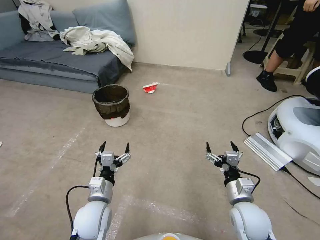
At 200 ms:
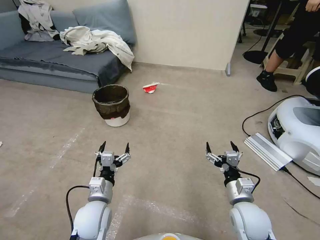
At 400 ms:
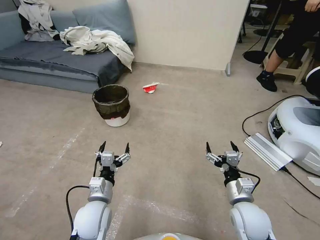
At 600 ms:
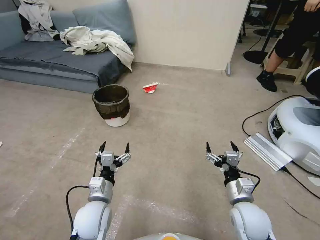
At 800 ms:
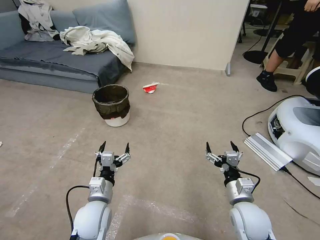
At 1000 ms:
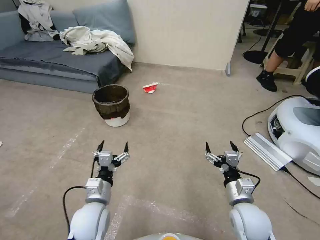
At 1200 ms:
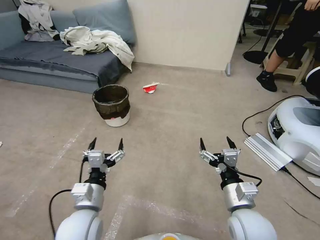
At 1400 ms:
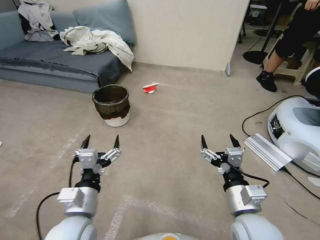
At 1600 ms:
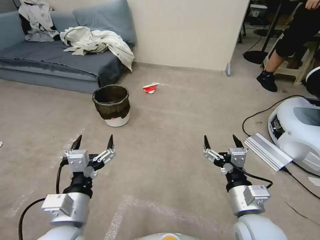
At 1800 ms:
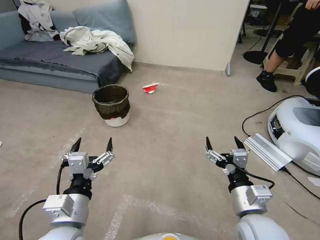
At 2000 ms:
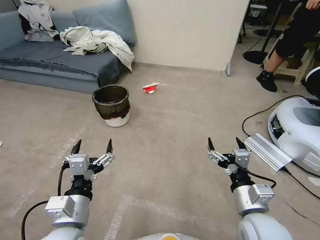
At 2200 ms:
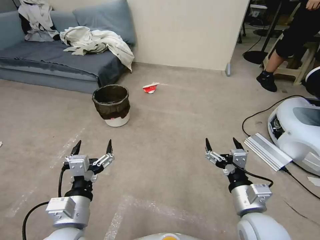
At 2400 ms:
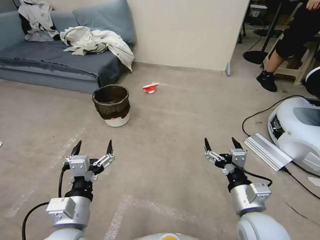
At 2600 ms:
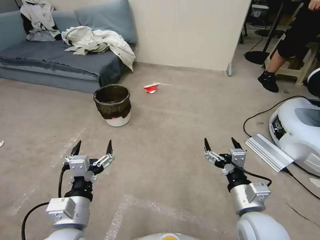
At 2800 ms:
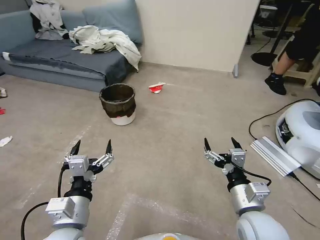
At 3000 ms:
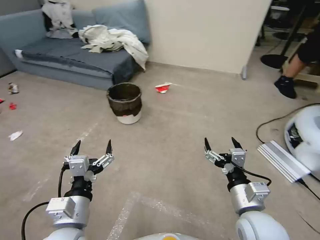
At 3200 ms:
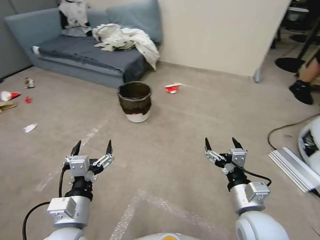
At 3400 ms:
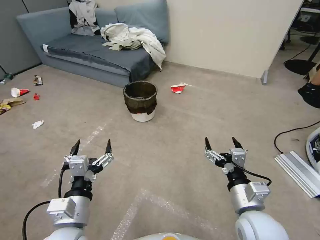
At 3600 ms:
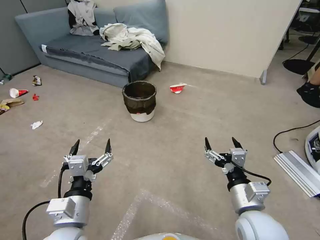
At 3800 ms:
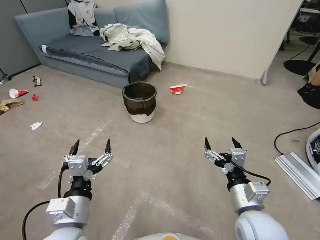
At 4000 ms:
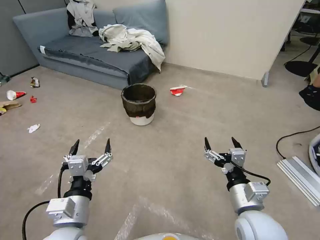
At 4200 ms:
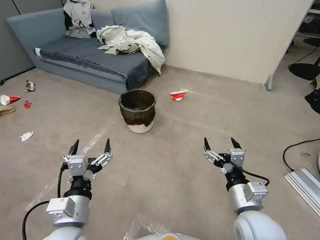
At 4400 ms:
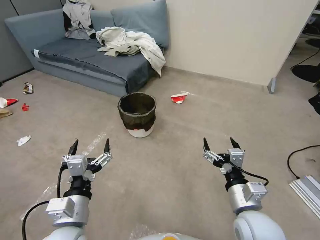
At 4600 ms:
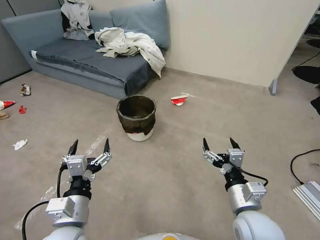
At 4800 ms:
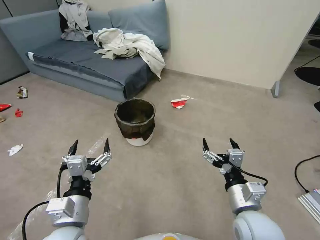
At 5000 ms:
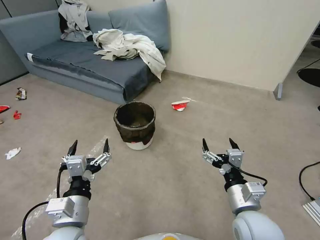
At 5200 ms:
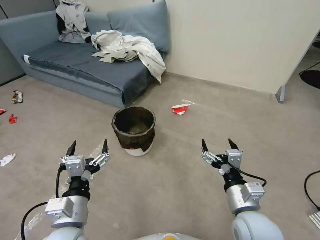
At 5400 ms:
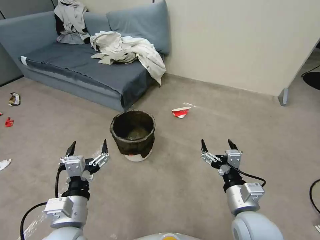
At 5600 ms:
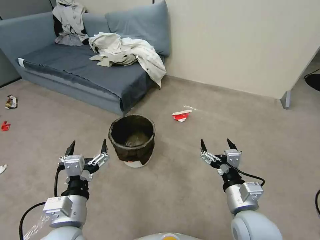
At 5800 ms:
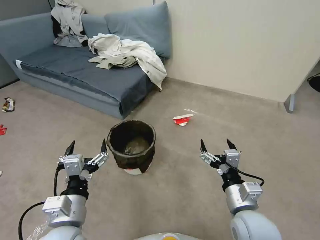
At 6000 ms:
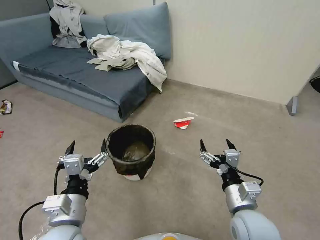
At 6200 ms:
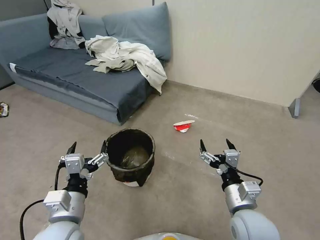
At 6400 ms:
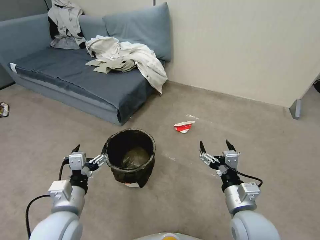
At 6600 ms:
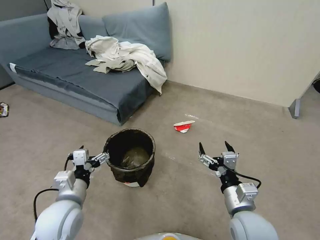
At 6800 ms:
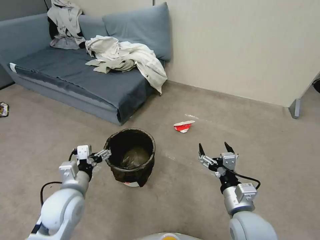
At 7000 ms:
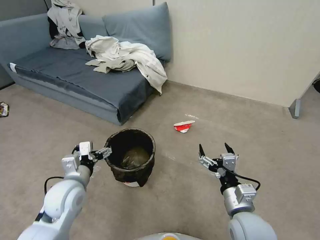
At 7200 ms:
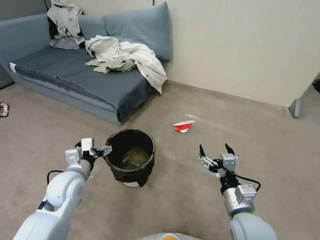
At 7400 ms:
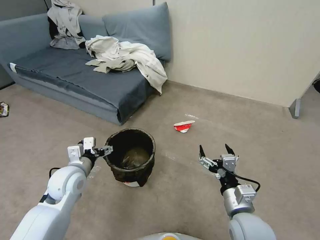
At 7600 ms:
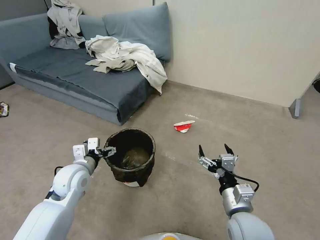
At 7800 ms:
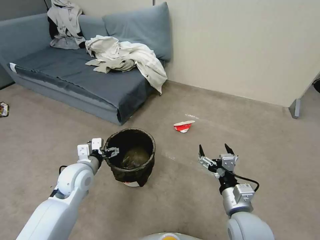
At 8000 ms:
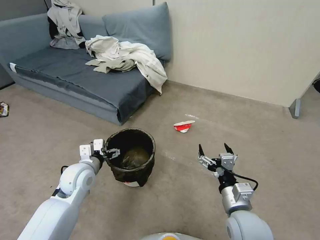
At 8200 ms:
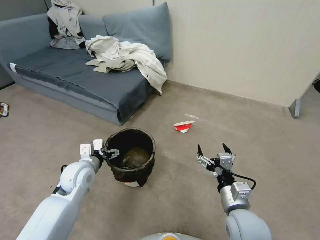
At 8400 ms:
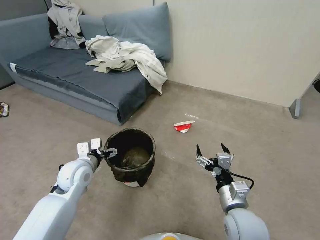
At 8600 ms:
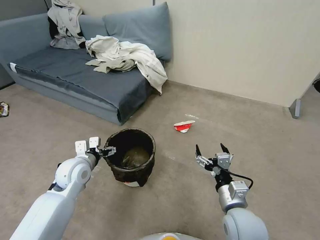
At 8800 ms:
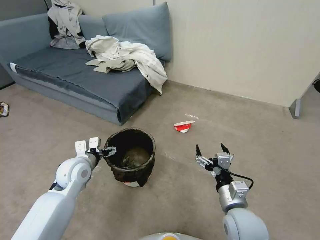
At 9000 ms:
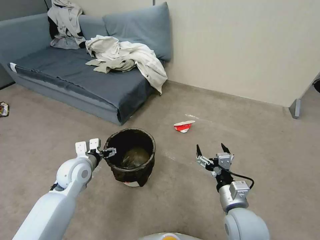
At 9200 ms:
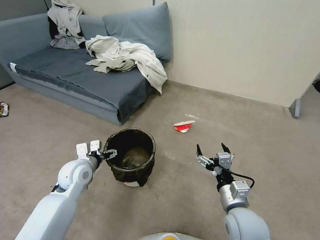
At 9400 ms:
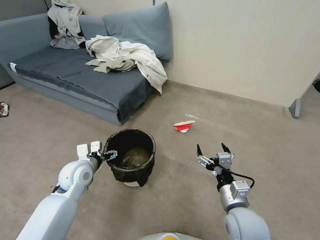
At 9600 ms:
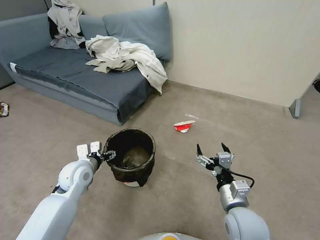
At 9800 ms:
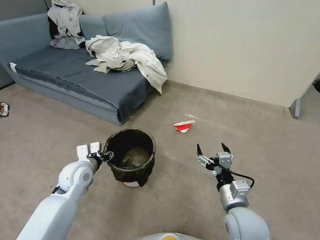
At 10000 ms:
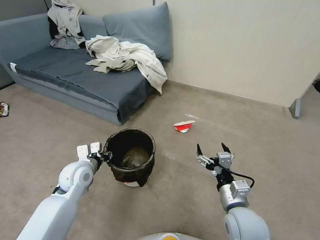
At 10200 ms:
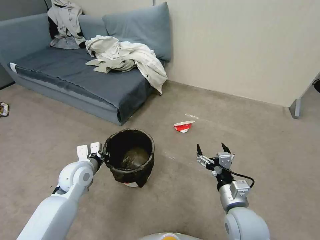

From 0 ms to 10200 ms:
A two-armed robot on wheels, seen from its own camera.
Task of the whole recording: Pick up the trash can from the floor.
From 5800 ms to 7200 ms: The left gripper heads forward and to the left, covering roughly 15 cm.
From 7200 ms to 8800 ms: The left gripper changes place by about 5 cm.
From 8800 ms to 10200 ms: The left gripper closes.

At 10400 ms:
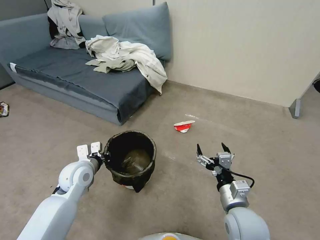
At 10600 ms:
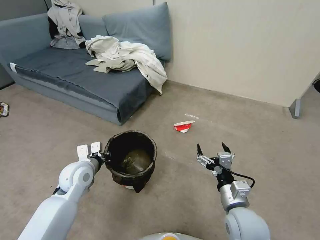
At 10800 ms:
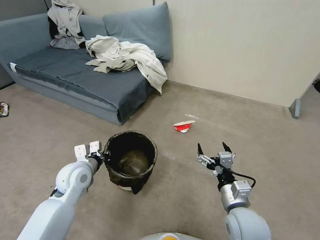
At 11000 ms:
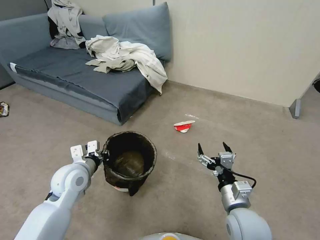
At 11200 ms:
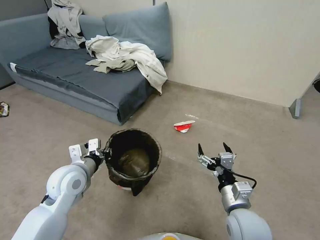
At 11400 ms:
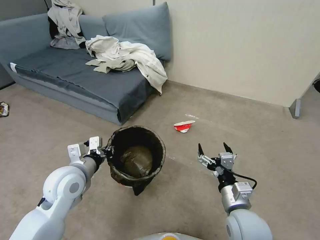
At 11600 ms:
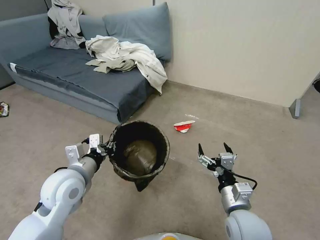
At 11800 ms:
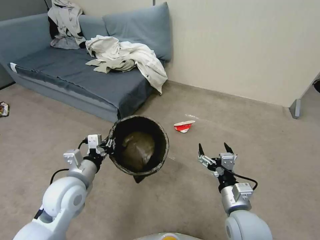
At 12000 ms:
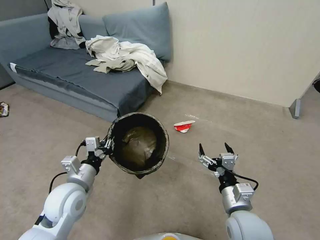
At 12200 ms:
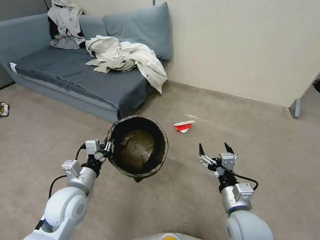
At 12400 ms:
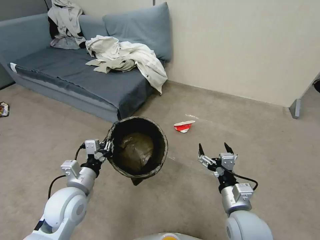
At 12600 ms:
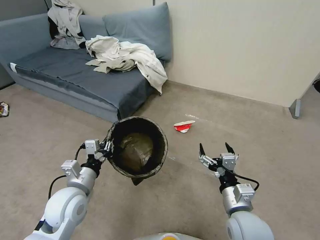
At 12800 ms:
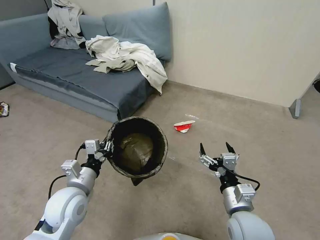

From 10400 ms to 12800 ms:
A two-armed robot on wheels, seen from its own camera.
Task of the whole recording: Pick up the trash can from the floor.
From 10400 ms to 11600 ms: The left gripper moves upward and backward, some 10 cm.
From 11600 ms to 12800 ms: The left gripper is displaced downward by roughly 5 cm.
